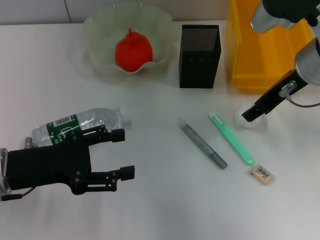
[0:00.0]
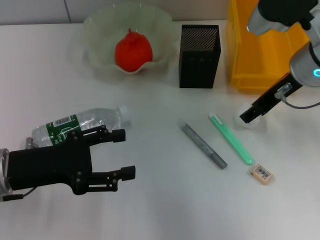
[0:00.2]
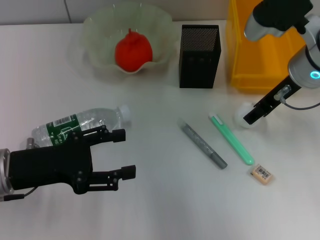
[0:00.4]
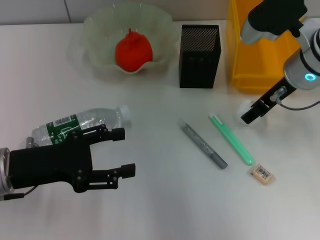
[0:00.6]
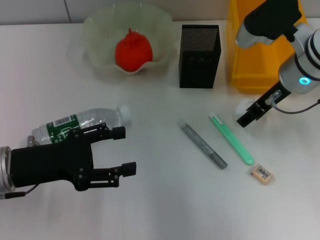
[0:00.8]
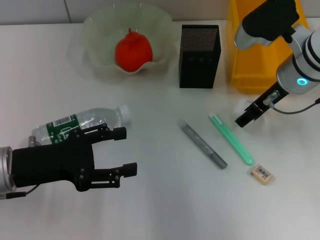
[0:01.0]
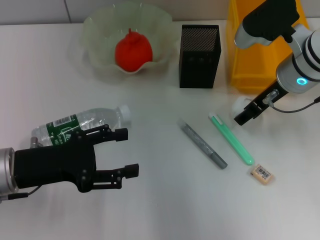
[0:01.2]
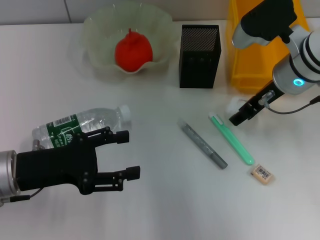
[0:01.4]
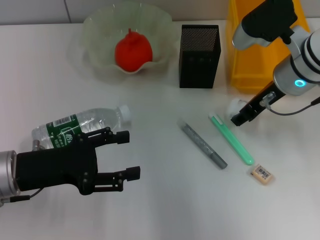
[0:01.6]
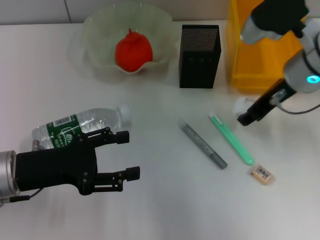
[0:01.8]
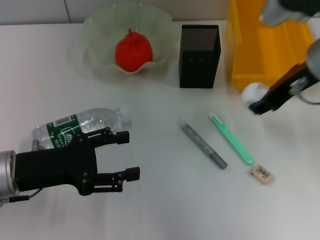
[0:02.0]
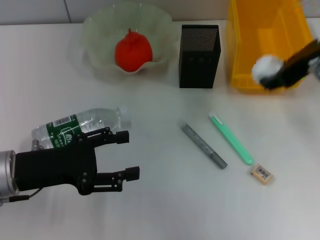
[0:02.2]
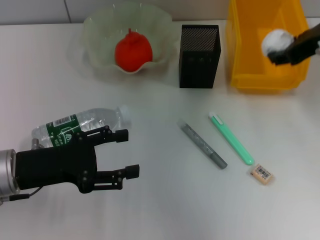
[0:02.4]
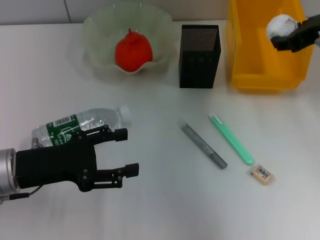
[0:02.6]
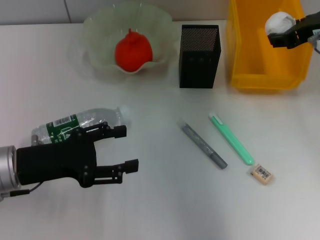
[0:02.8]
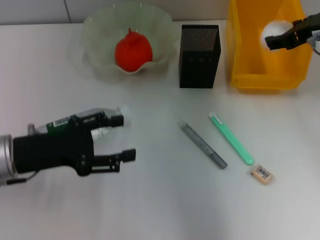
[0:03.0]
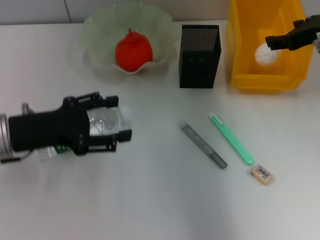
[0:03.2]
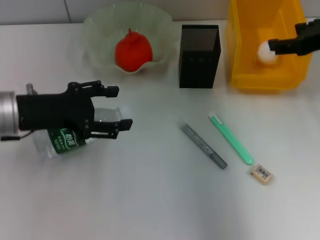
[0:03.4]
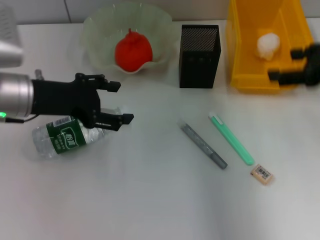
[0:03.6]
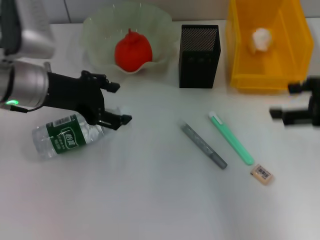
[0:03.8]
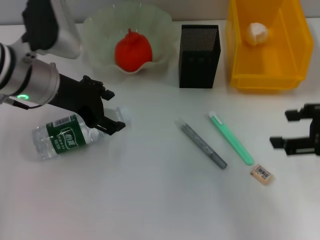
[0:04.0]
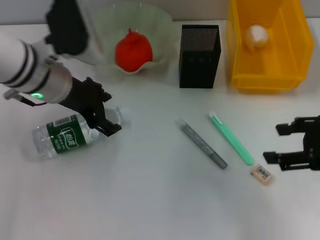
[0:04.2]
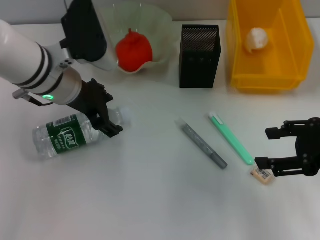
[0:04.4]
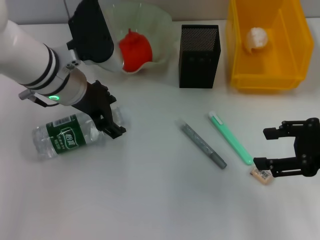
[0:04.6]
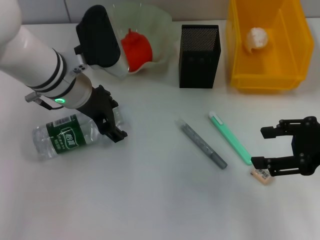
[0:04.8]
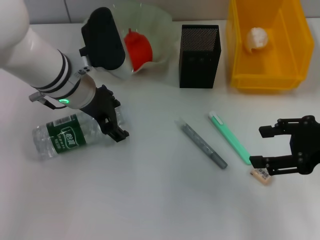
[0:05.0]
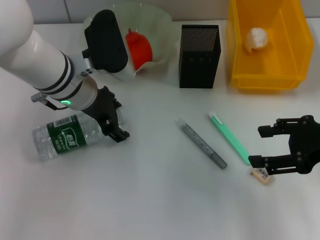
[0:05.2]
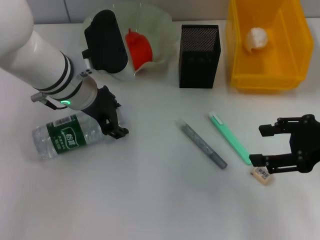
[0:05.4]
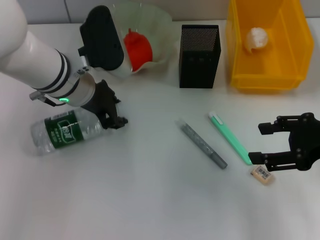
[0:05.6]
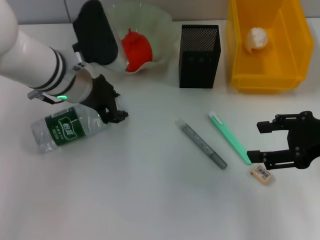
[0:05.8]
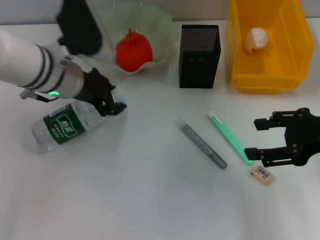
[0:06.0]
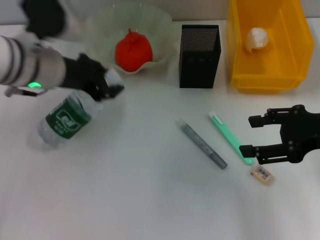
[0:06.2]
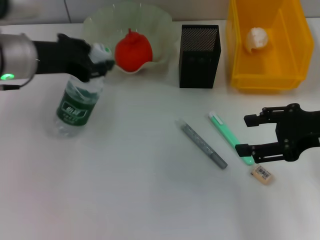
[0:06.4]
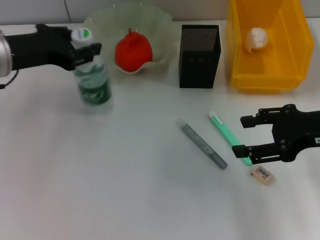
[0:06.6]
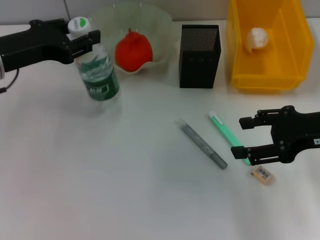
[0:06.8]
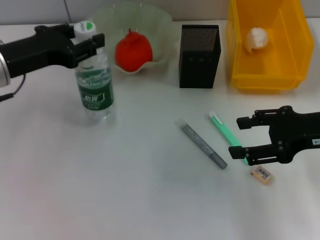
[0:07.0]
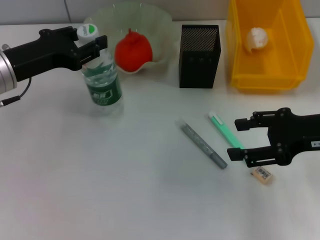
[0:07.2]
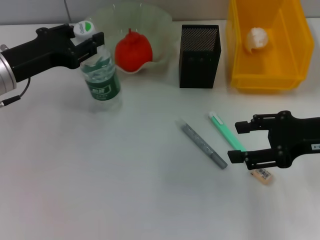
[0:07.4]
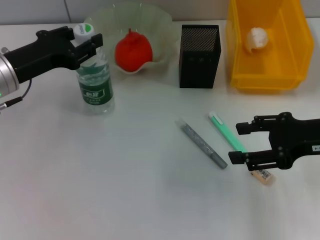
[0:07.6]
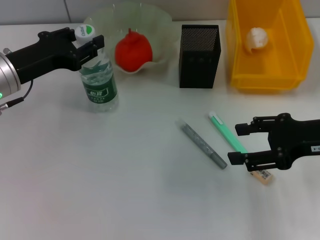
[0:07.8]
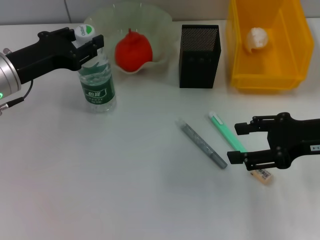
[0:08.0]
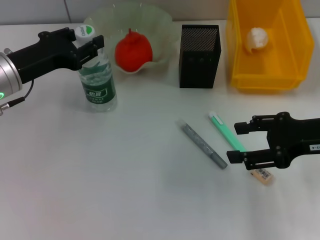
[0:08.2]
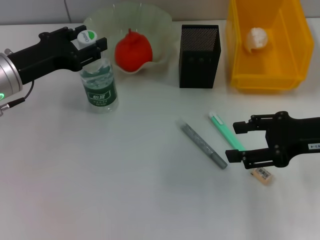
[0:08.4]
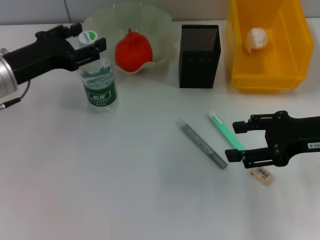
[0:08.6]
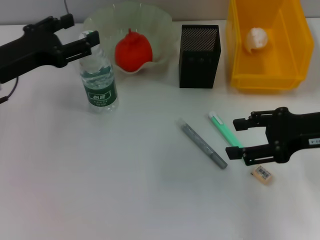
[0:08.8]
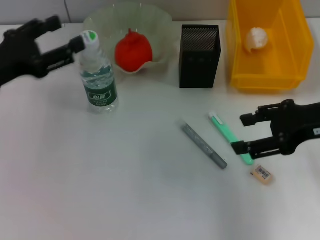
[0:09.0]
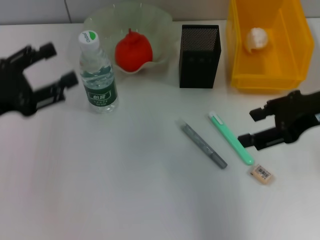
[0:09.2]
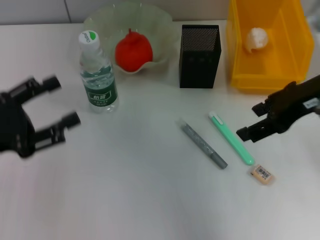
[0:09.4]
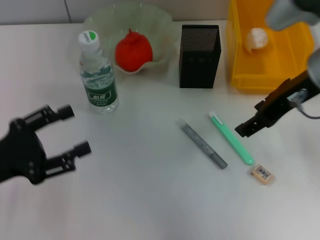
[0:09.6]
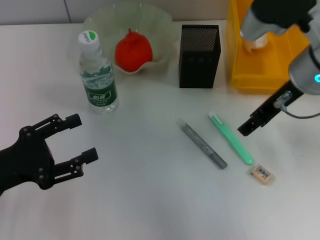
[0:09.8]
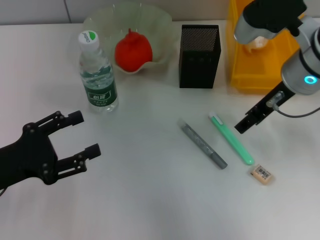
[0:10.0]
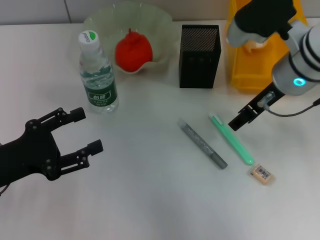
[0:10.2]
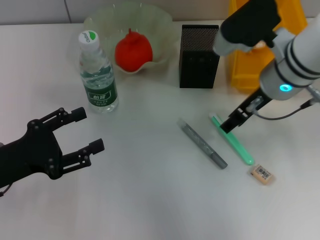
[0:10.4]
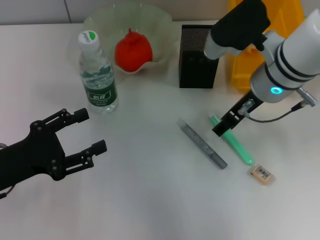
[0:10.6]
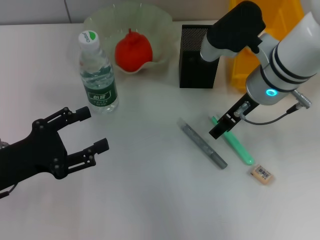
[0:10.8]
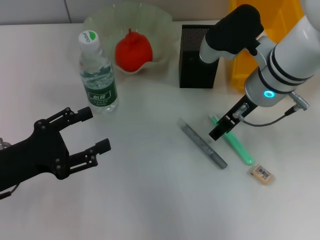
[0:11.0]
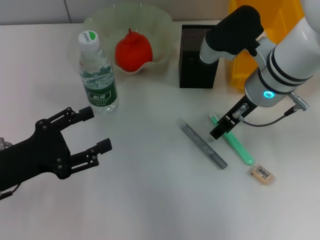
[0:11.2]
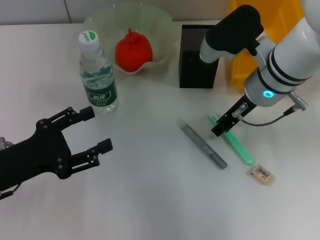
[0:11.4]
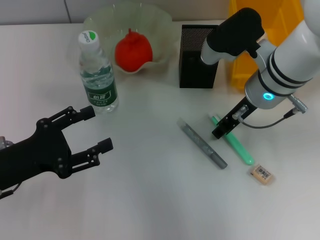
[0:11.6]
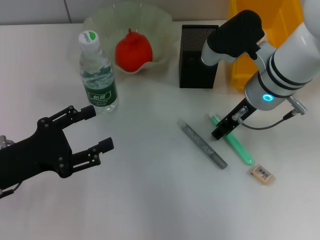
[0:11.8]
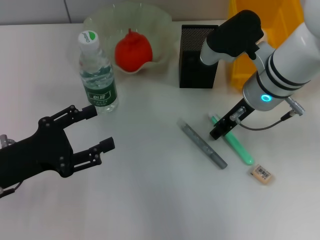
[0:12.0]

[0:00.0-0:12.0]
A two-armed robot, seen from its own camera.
Step, 1.2 to 3.4 s: Place the paper ball into the trash can with the right hand.
Step, 3.8 to 5.6 s: Grab the water bottle with the left hand.
Step, 5.8 to 8.6 s: Place the water bottle on the table with the left hand.
0.0 to 1.6 s: The grippers move only a little.
1.6 to 3.0 s: The right gripper heads to the right and upward, covering roughly 10 cm.
3.0 to 4.4 s: The right gripper shifts roughly 15 cm backward. The left gripper heads forward, to the right and upward, covering roughly 15 cm.
4.4 to 6.0 s: The left gripper closes up.
6.0 to 7.6 s: The left gripper goes approximately 10 cm to the left.
7.6 to 9.0 s: The left gripper shifts by about 5 cm, and opens up.
9.0 to 10.4 s: The right gripper shifts approximately 15 cm to the left and forward; the left gripper moves backward and downward, some 10 cm.
10.4 to 12.0 s: The right gripper closes up.

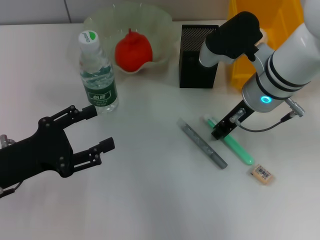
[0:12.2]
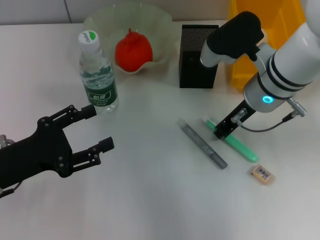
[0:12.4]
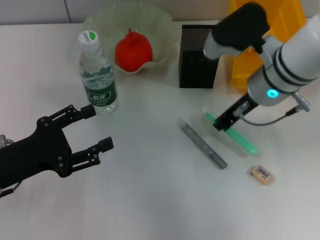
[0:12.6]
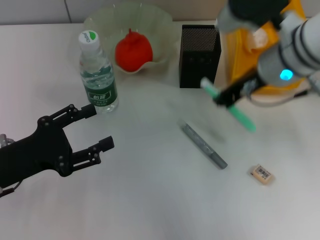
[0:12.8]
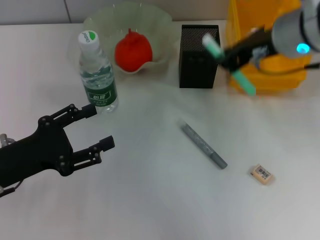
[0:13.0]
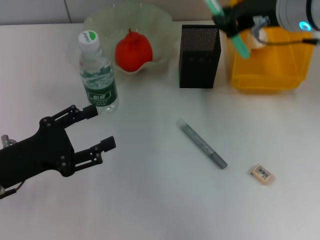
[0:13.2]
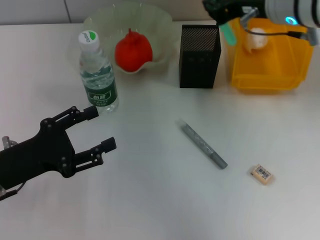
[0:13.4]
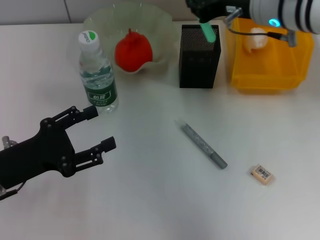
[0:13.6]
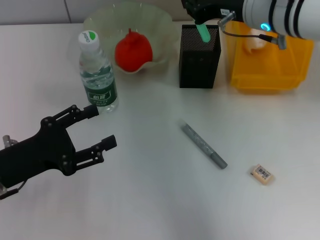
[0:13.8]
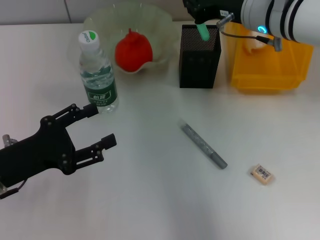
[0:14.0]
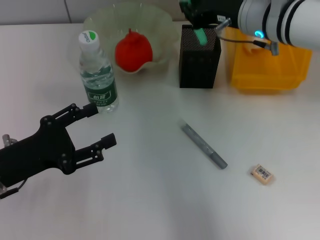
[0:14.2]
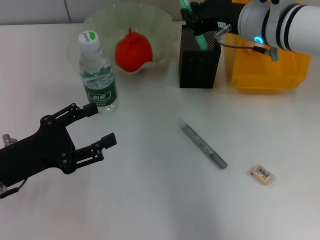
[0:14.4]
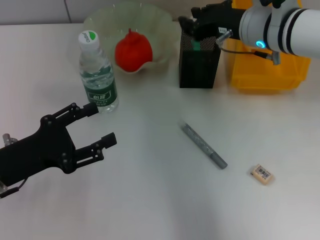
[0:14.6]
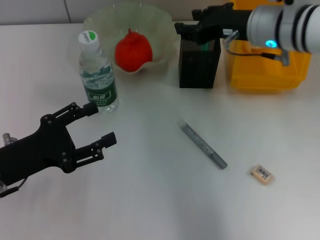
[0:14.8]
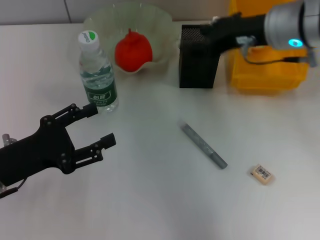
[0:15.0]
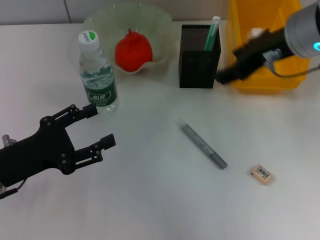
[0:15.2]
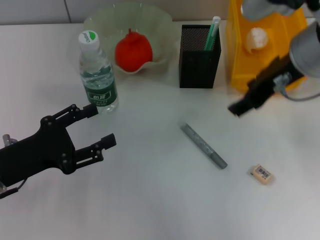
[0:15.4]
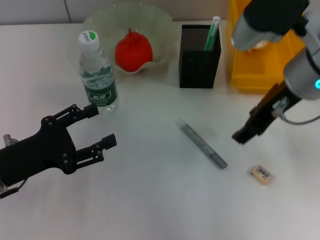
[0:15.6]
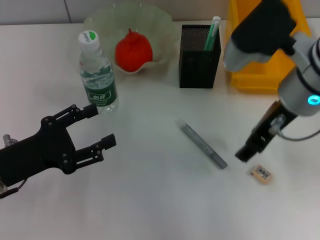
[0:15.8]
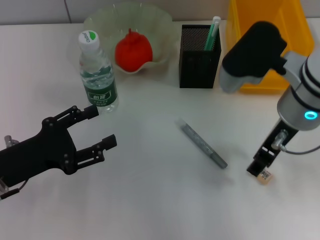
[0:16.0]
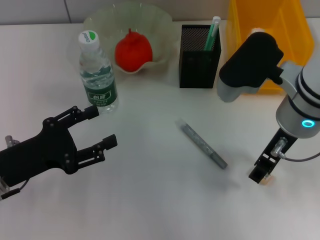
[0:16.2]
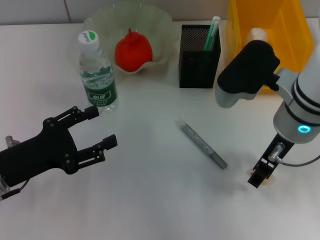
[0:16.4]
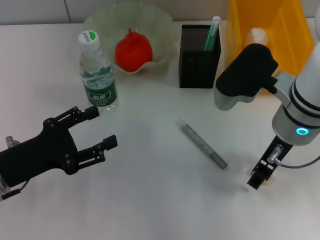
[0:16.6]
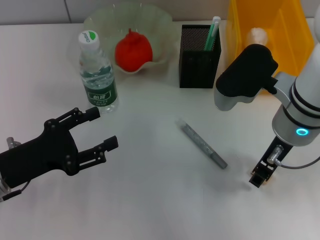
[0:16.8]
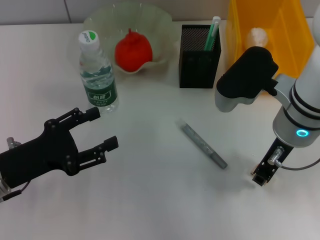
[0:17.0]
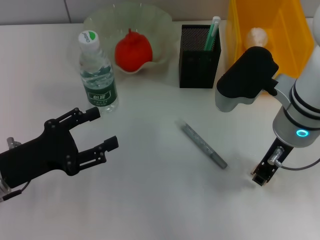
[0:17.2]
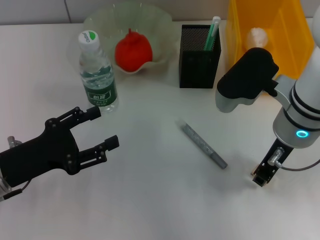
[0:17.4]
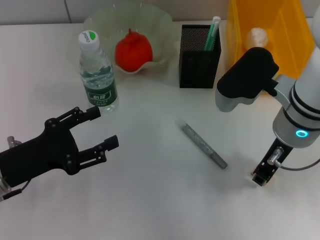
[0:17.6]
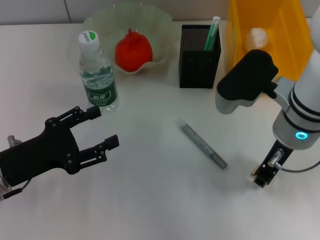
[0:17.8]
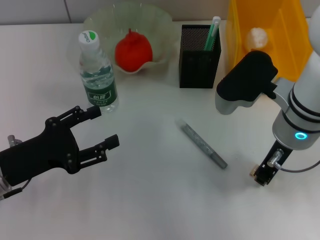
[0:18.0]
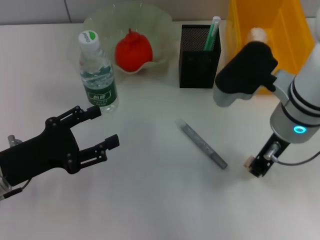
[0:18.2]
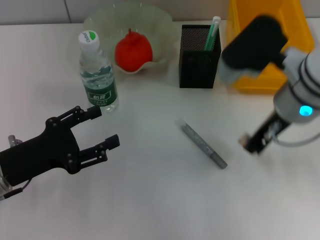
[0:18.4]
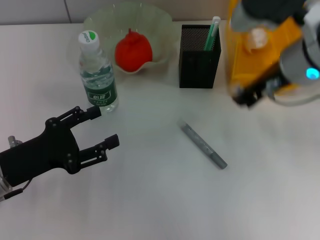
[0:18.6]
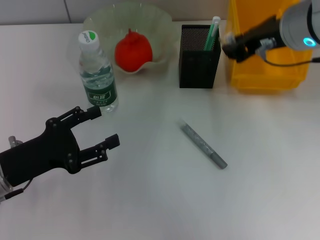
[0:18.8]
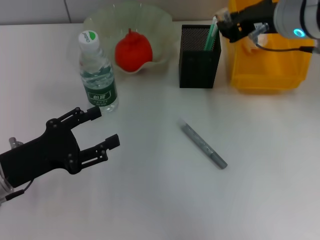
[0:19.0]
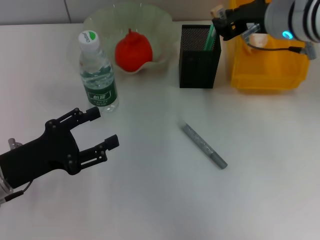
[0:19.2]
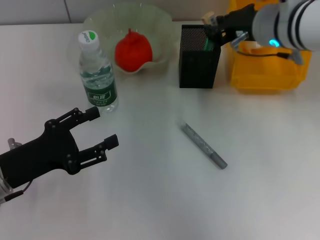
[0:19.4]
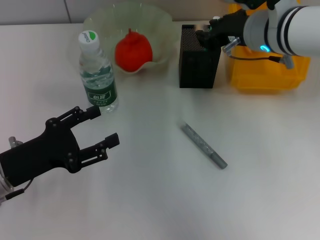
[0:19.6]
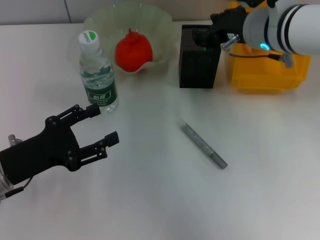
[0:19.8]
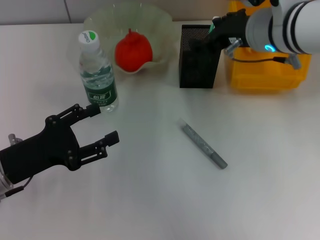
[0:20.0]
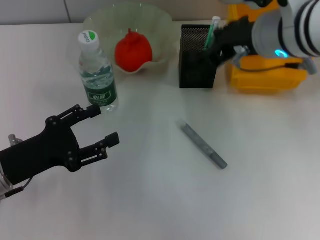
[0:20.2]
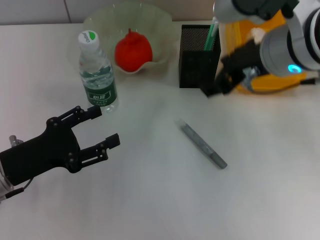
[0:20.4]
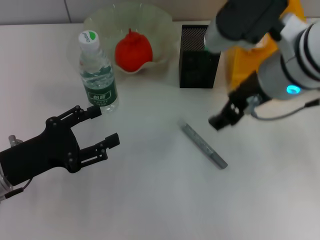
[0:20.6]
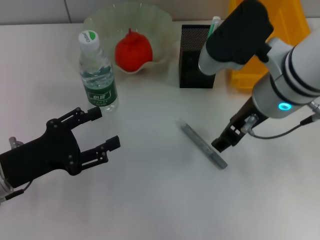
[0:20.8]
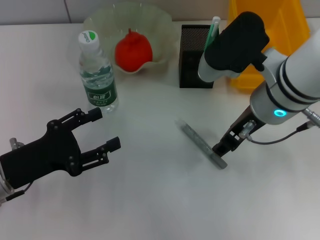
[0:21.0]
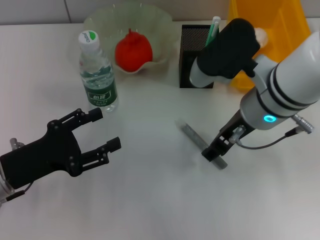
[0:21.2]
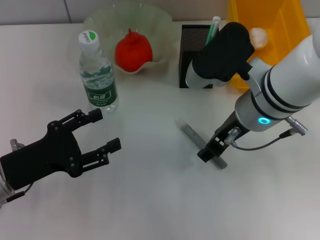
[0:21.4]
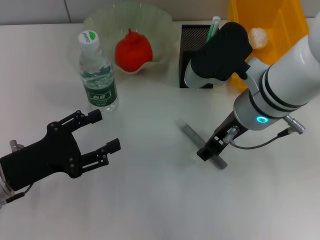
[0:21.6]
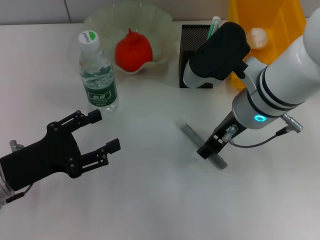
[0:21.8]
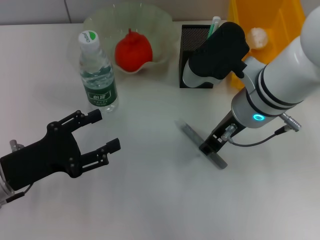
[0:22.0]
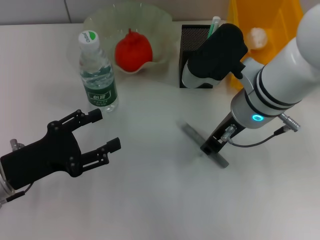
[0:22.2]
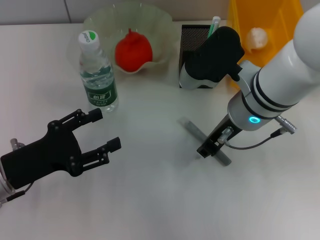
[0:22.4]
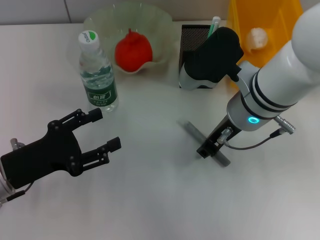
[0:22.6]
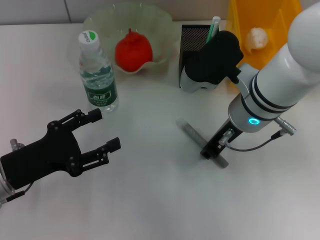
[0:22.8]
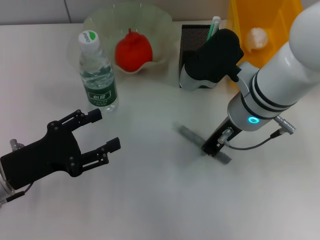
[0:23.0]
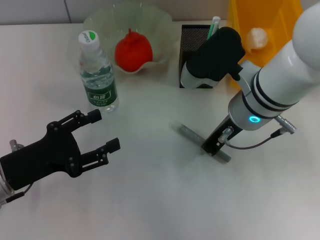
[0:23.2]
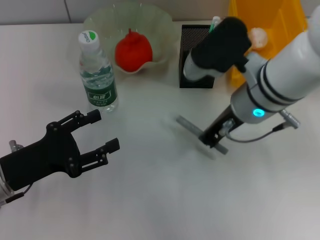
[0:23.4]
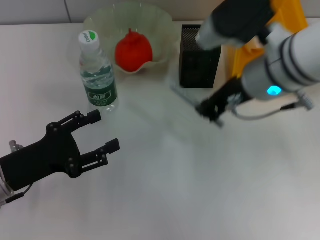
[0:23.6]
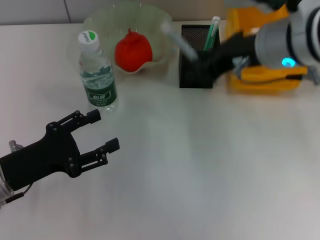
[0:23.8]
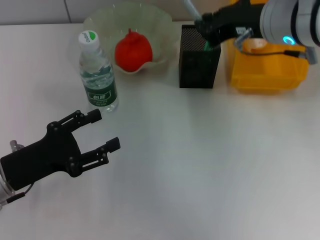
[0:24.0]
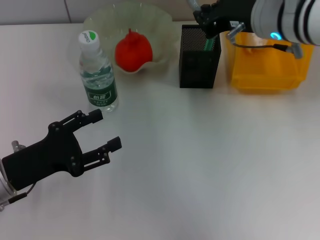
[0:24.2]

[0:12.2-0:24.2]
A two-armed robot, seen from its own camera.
Step, 12.4 to 15.2 s: Place the blue utility knife into the pen holder with the right hand.
Step, 15.4 to 17.8 s: Grab the eraser with the right hand.
Step, 18.0 to 20.0 s: Put the eraser into the pen holder with the right hand.
Step, 20.4 to 23.0 s: Grab the gray glue with the right hand.
12.2 to 13.8 s: The right gripper shifts approximately 5 cm upward.
13.8 to 15.2 s: The right gripper heads backward, covering some 5 cm, and opens up.
15.2 to 16.6 s: The right gripper travels downward by roughly 10 cm.
16.6 to 18.2 s: The right gripper closes up.
18.2 to 19.8 s: The right gripper moves forward, approximately 10 cm.
19.8 to 21.2 s: The right gripper moves backward, roughly 5 cm, and opens up.
21.2 to 22.6 s: The right gripper closes its fingers.
22.6 to 24.2 s: The right gripper goes approximately 10 cm upward and forward, and closes.
